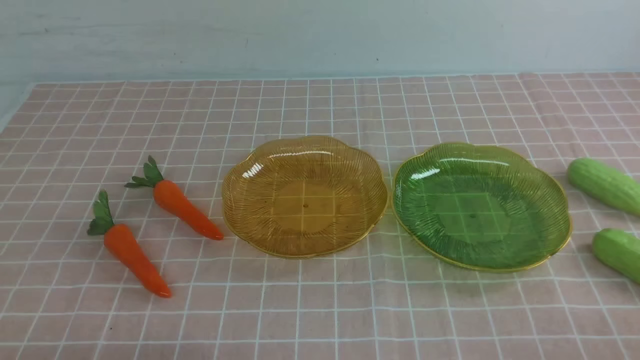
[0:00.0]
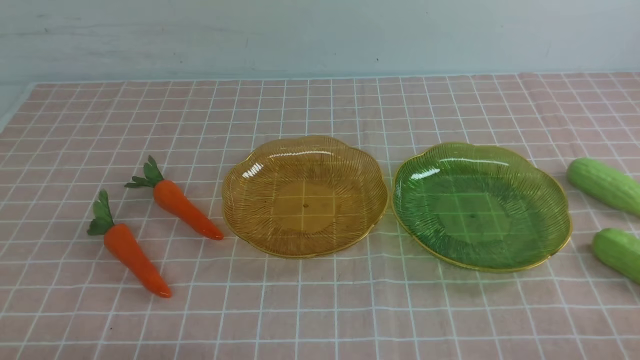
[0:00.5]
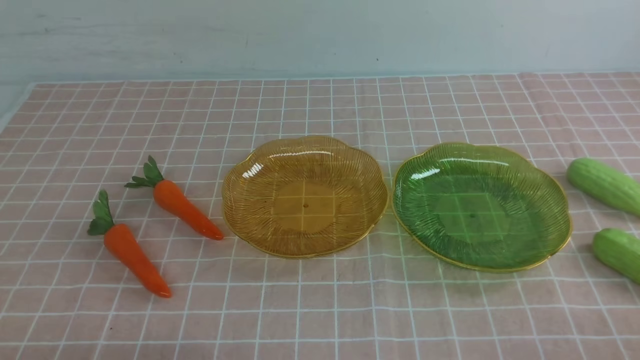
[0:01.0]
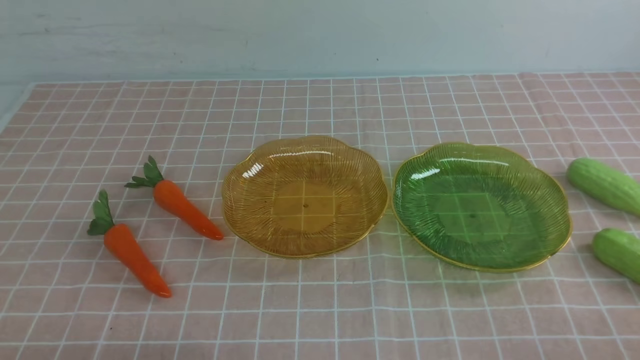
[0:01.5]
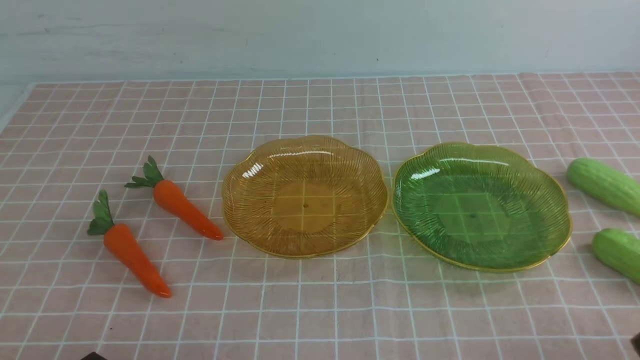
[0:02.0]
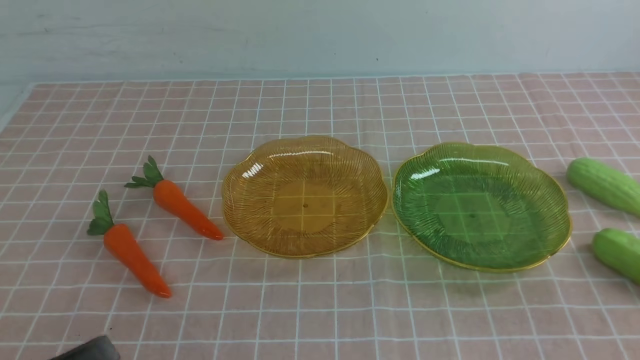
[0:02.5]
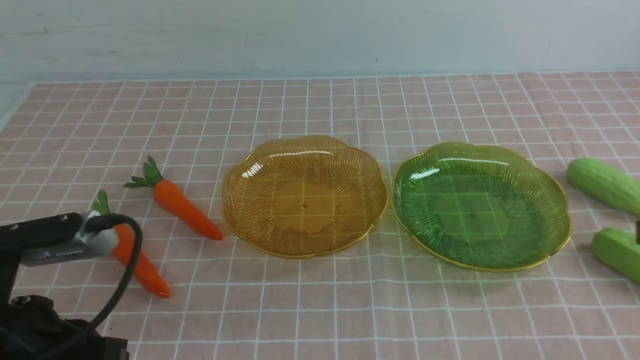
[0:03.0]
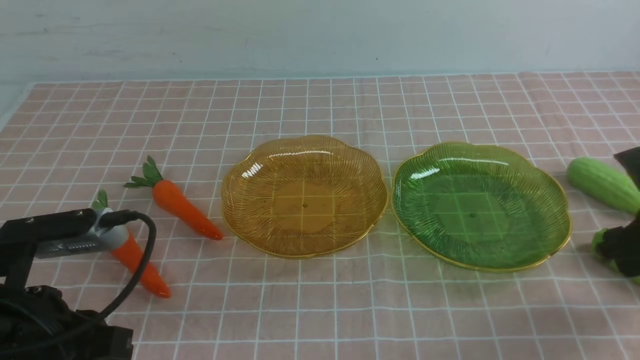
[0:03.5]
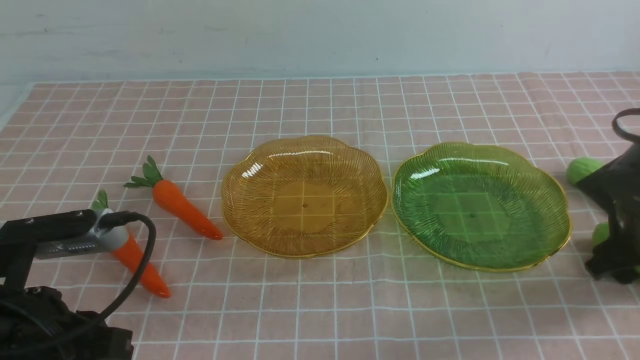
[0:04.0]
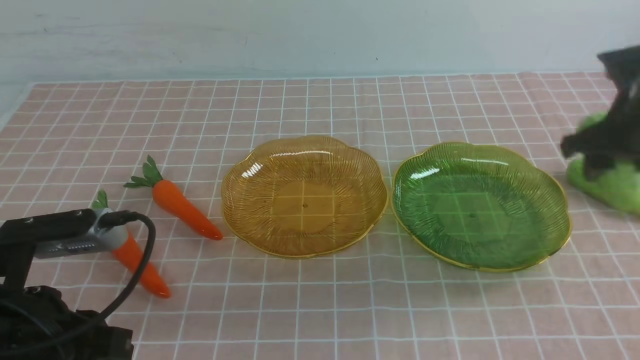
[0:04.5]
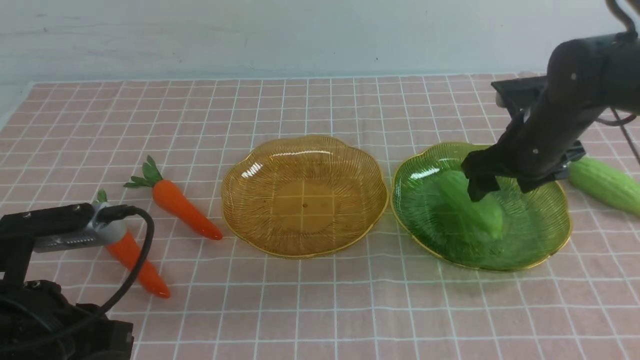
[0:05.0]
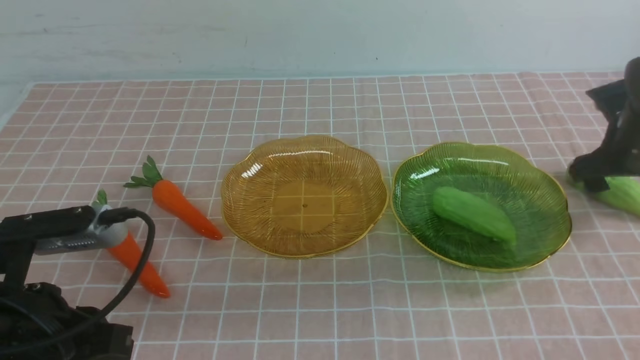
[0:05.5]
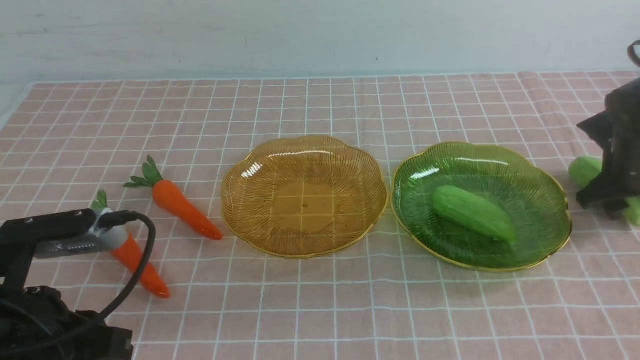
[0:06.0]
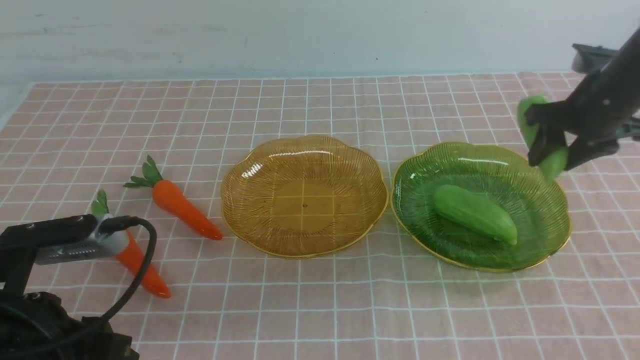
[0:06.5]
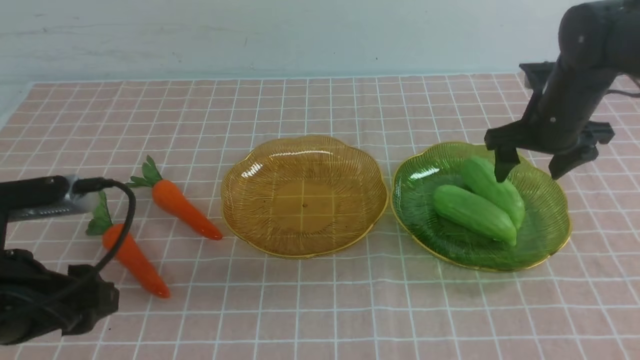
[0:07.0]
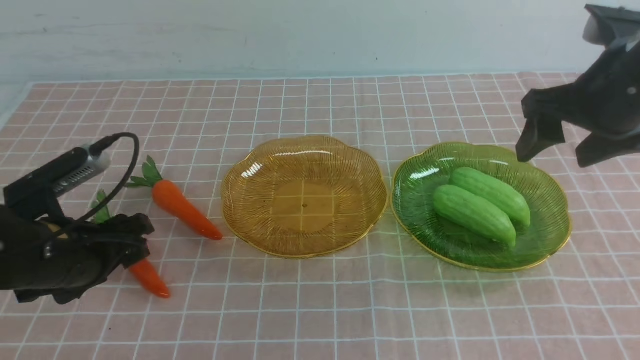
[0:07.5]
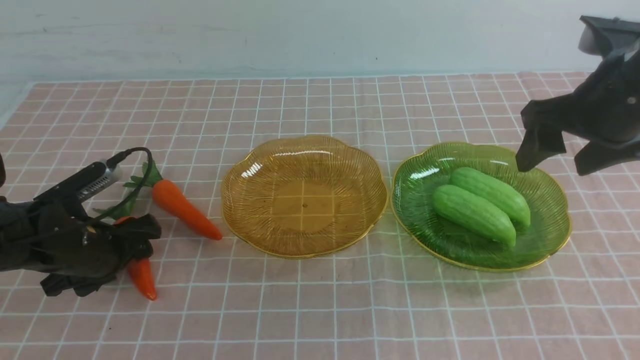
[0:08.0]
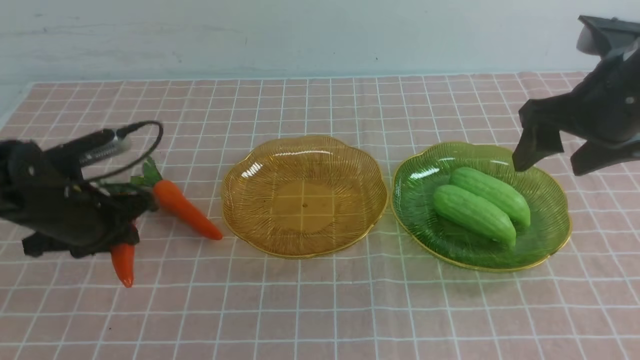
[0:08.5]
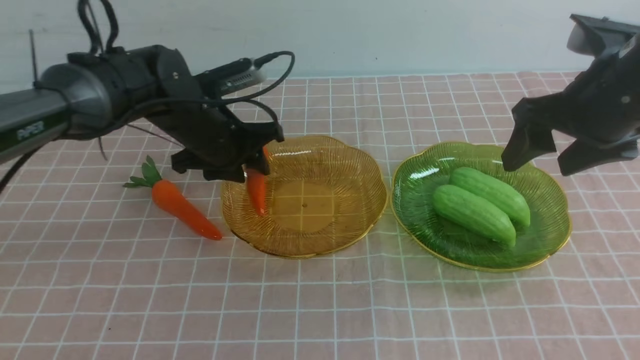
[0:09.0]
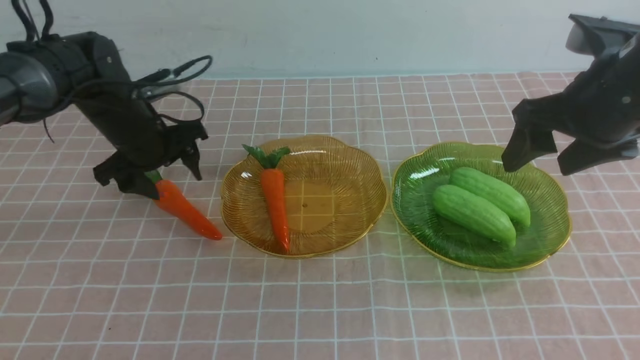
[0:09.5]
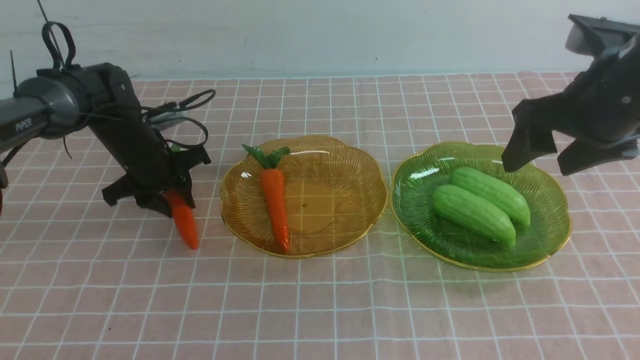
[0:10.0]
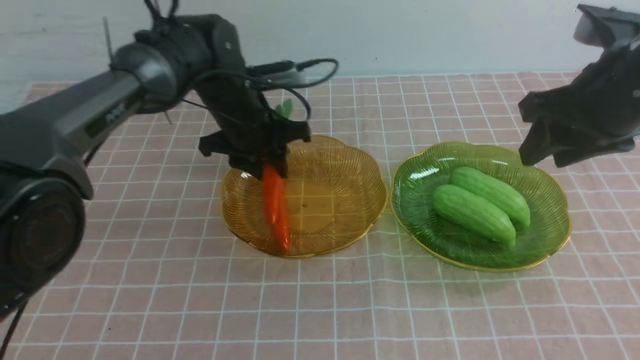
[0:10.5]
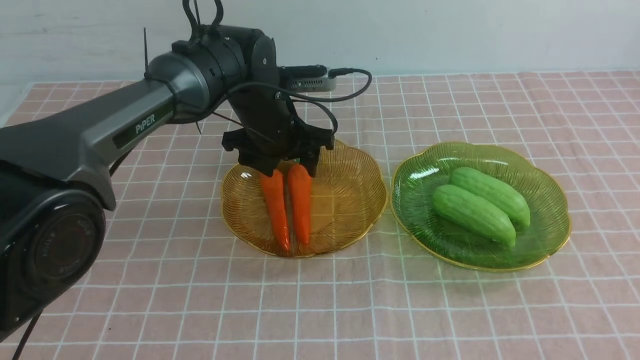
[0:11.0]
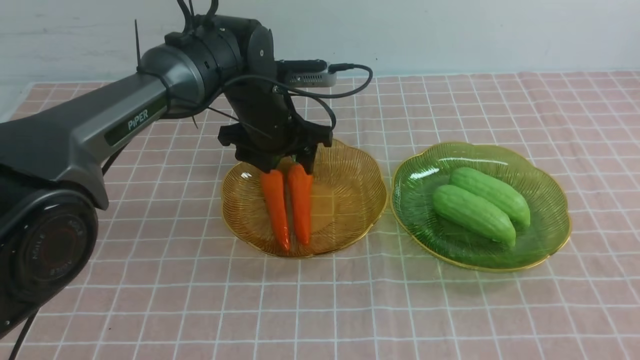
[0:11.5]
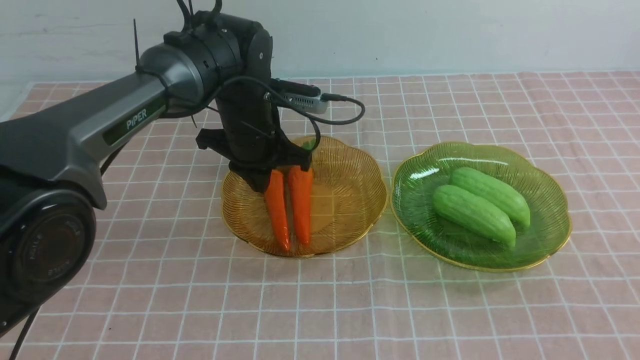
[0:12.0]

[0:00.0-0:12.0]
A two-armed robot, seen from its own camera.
Step, 0:00.0 to 0:04.5: use the right arm to grab a chayote and put it into the right plate.
Step, 0:05.5 to 0:06.5: use the right arm to grab a chayote and put it into the right plate.
Step, 0:07.0 to 0:11.0: use the left arm to grab a carrot and put it into the left plate.
0:02.0 to 0:04.0: The right gripper travels forward by approximately 30 cm, and opens its fingers; the left gripper travels forward and upward by about 10 cm.
0:04.0 to 0:06.0: The right gripper moves forward, approximately 10 cm, and travels to the left and back again, approximately 10 cm each way.
0:06.0 to 0:08.0: The right gripper goes some 20 cm upward, to the left and backward. Meanwhile the left gripper goes roughly 20 cm forward and downward, and opens.
0:08.0 to 0:10.0: The left gripper travels forward by approximately 15 cm.
0:10.0 to 0:12.0: The right gripper heads backward, covering some 25 cm, and closes up, while the left gripper goes roughly 15 cm to the right and upward, and closes.

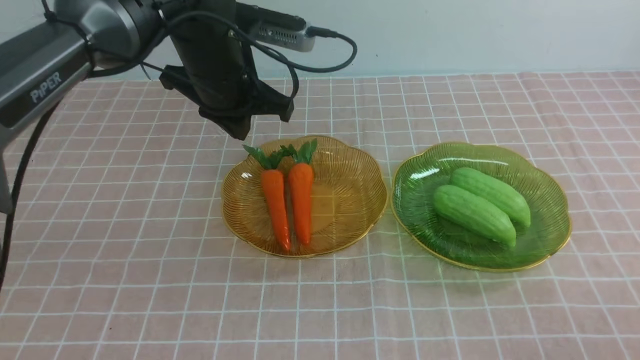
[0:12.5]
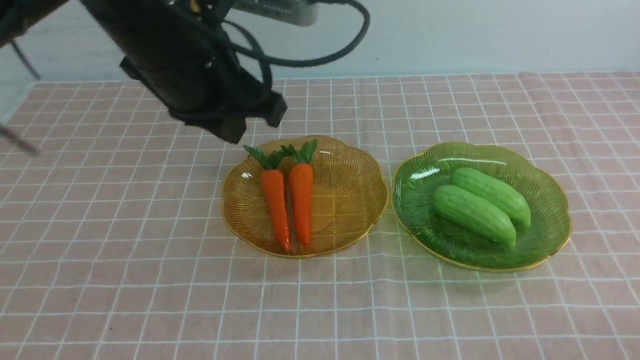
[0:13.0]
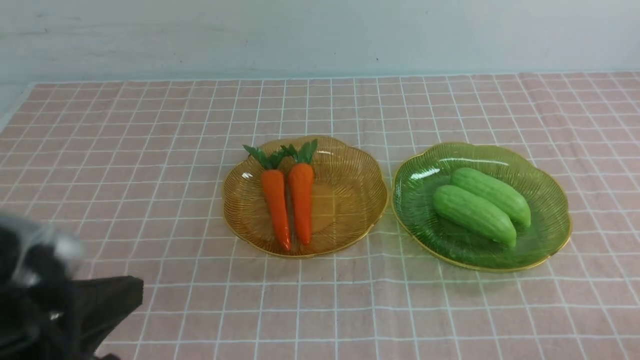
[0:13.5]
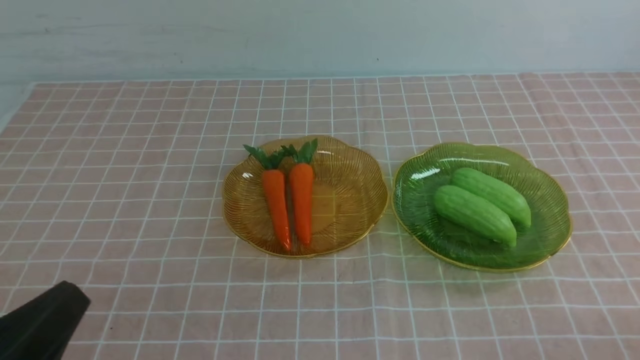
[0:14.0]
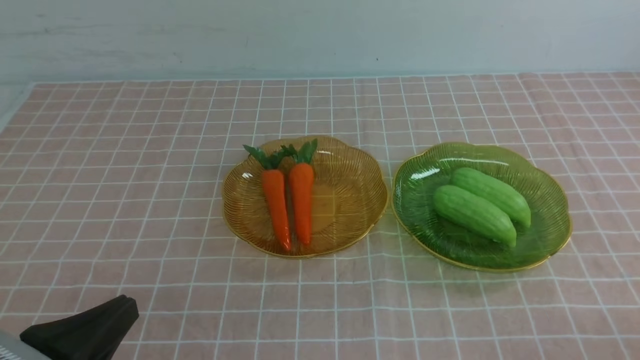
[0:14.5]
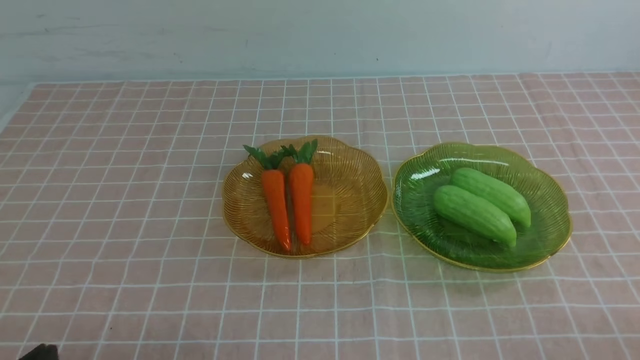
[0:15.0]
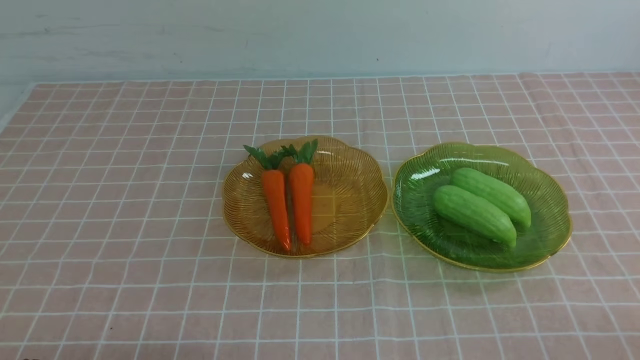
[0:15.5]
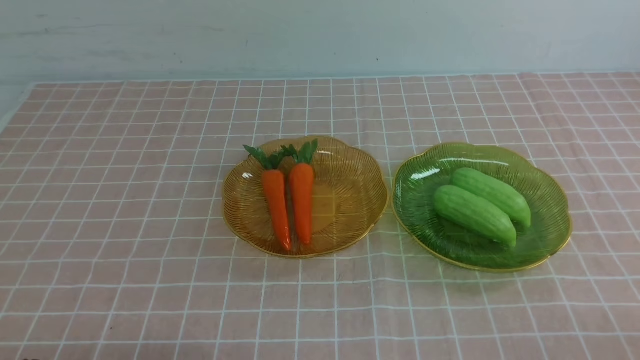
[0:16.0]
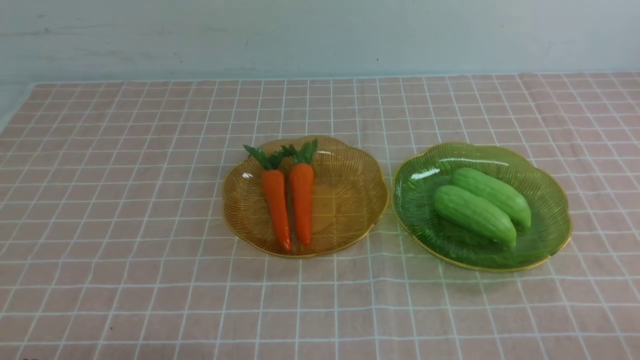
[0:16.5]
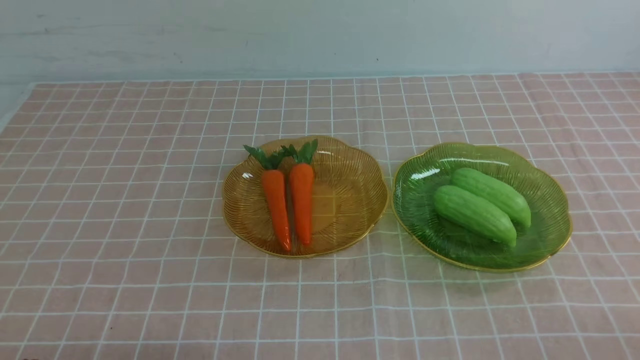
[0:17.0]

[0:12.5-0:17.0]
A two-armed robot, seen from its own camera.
0:12.5 to 0:14.5: The left gripper is displaced backward and to the left by roughly 30 cm.
0:14.5 to 0:17.0: The left gripper goes some 5 cm downward.

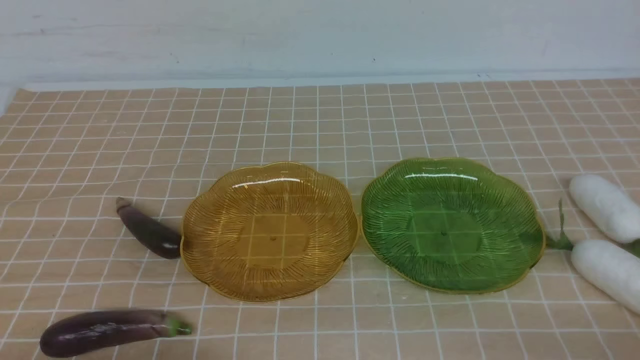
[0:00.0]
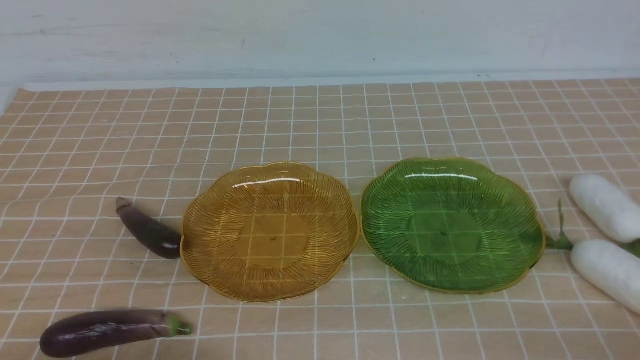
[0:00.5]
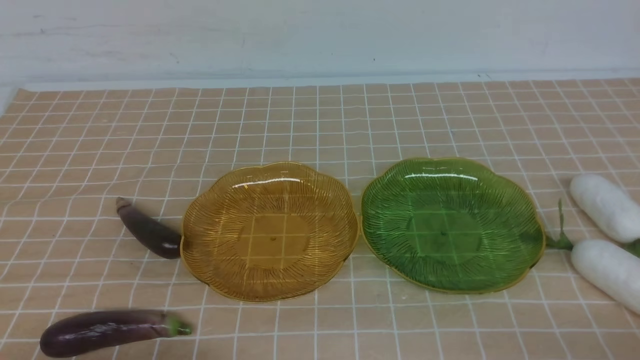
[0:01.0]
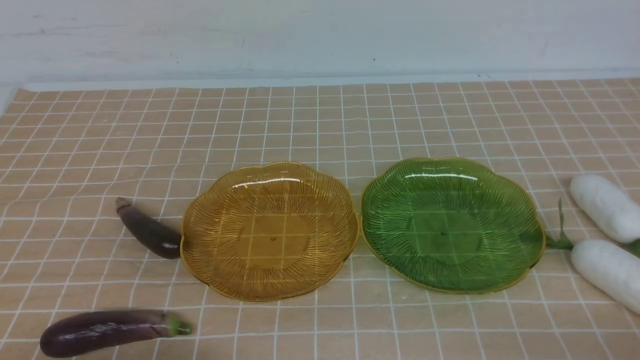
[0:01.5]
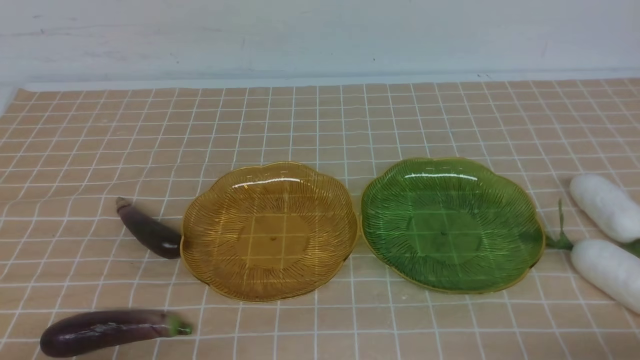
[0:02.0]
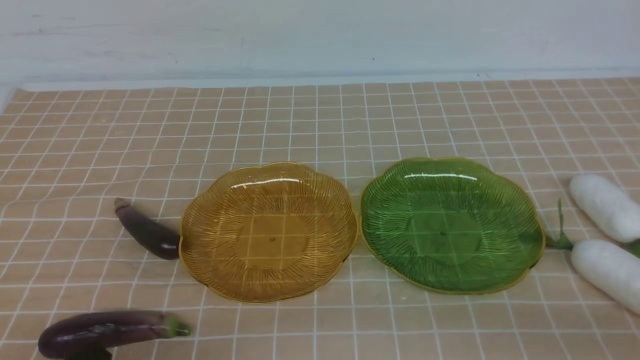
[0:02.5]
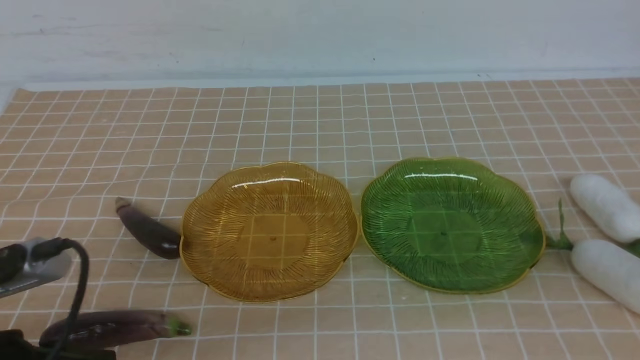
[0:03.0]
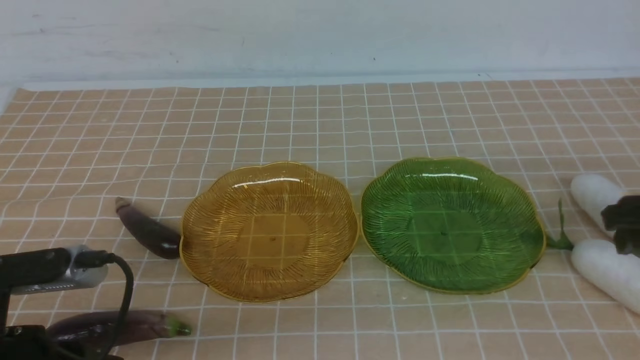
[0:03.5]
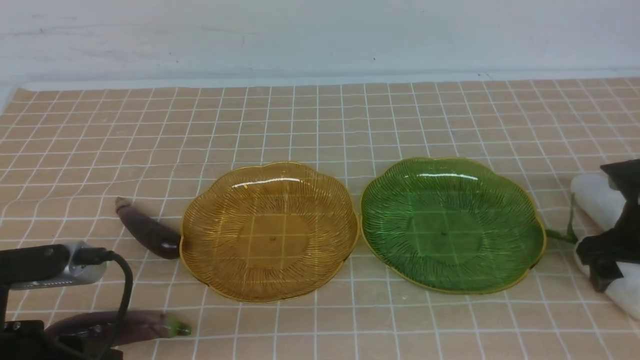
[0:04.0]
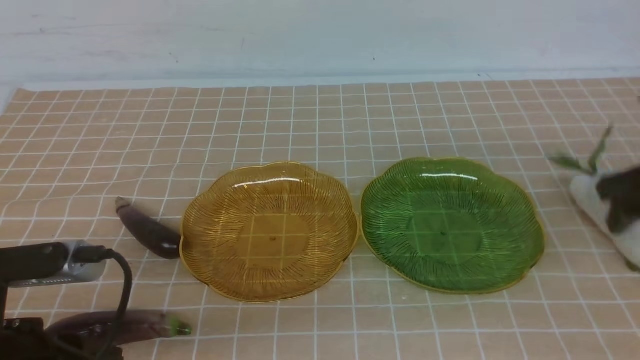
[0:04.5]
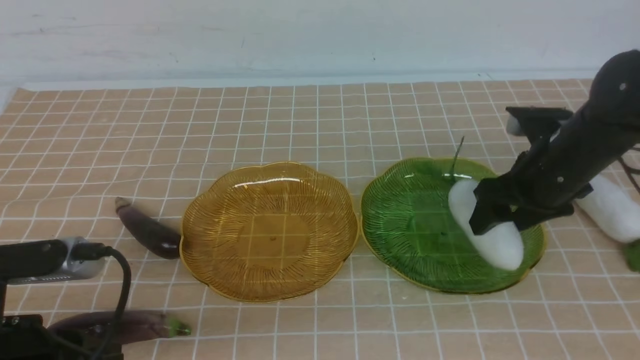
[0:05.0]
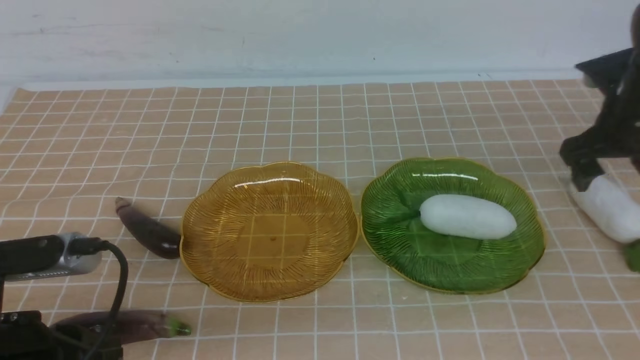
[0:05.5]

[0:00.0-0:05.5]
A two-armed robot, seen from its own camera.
0:02.0 to 0:03.5: The right gripper shifts approximately 25 cm forward, and opens its fingers; the left gripper travels upward and forward by roughly 10 cm.
0:03.5 to 0:05.5: The right gripper goes approximately 10 cm forward.
